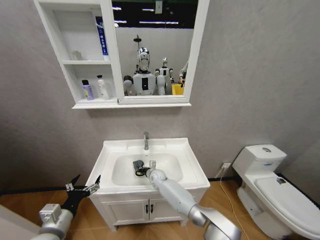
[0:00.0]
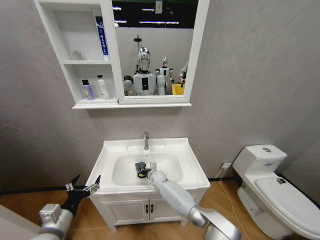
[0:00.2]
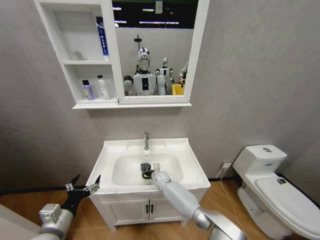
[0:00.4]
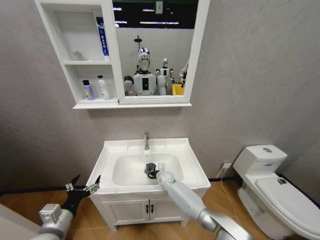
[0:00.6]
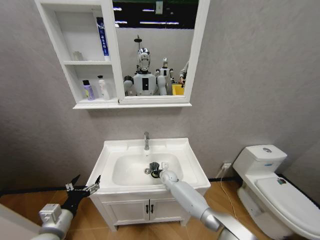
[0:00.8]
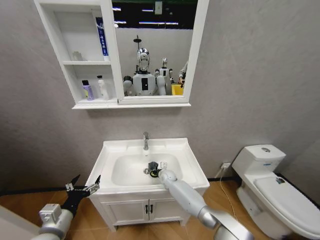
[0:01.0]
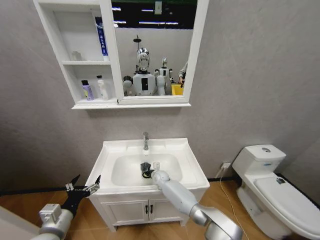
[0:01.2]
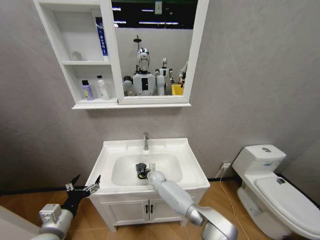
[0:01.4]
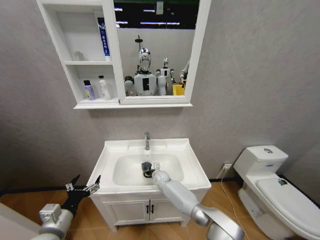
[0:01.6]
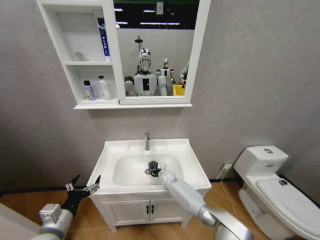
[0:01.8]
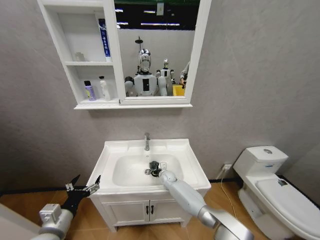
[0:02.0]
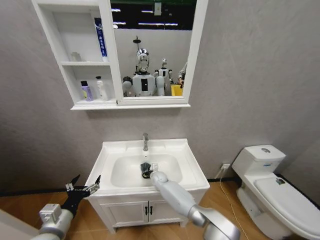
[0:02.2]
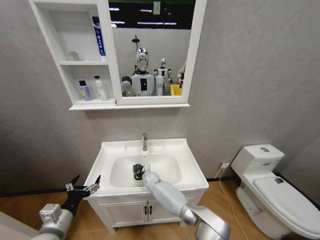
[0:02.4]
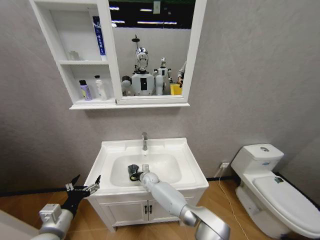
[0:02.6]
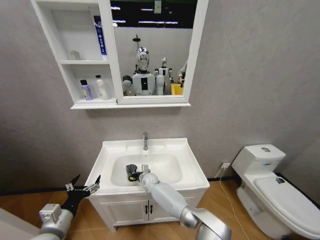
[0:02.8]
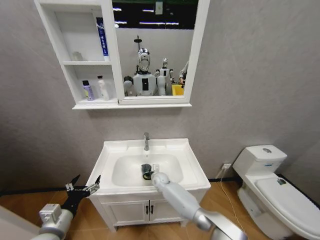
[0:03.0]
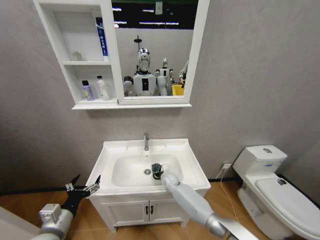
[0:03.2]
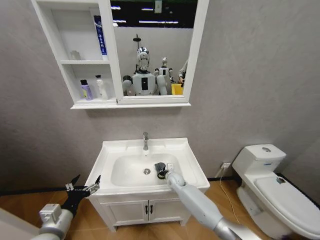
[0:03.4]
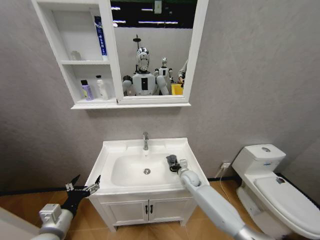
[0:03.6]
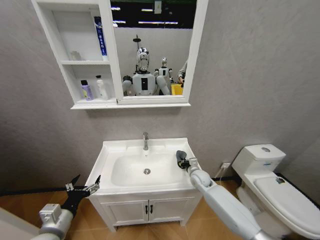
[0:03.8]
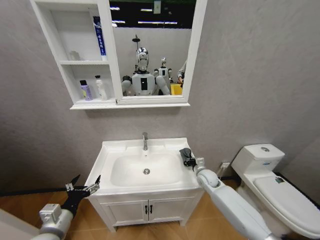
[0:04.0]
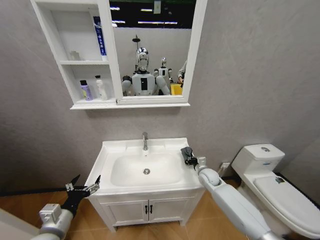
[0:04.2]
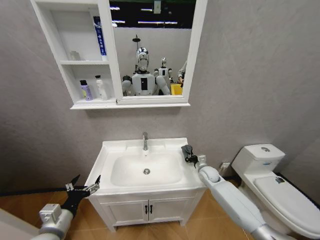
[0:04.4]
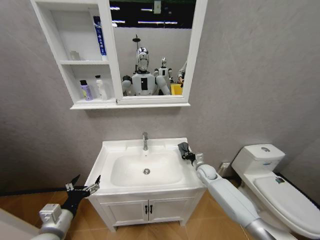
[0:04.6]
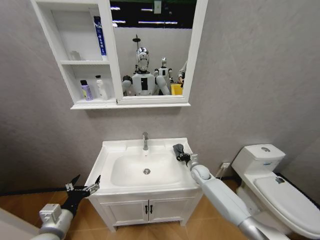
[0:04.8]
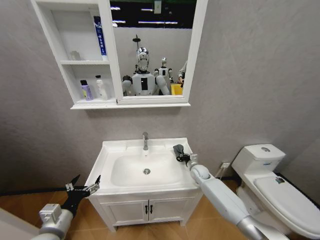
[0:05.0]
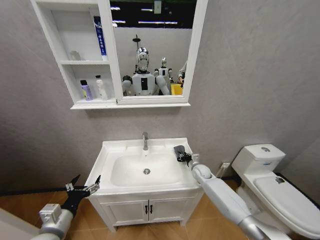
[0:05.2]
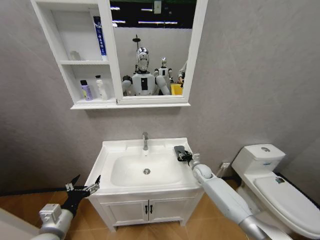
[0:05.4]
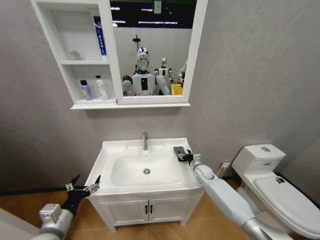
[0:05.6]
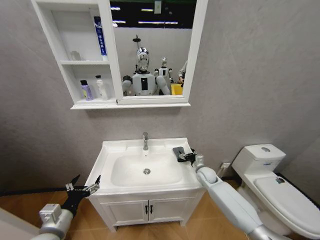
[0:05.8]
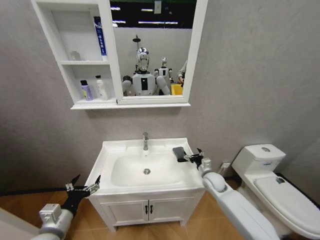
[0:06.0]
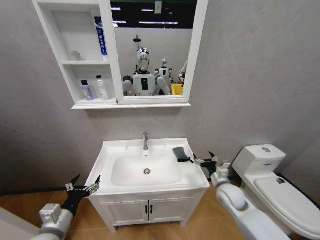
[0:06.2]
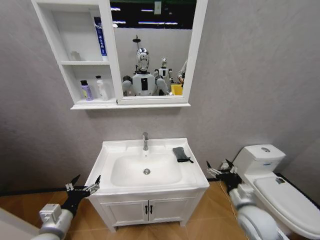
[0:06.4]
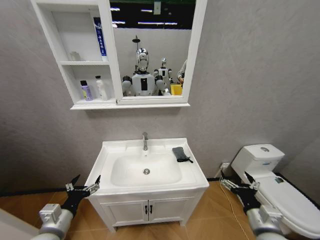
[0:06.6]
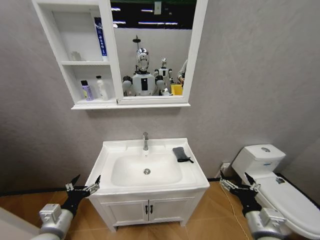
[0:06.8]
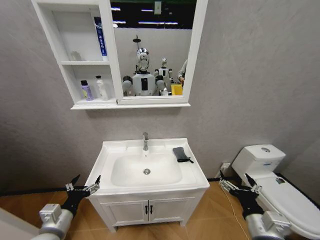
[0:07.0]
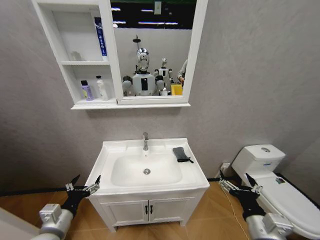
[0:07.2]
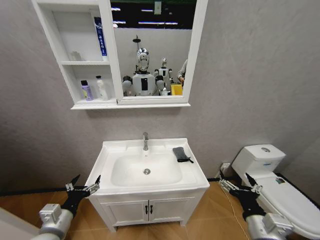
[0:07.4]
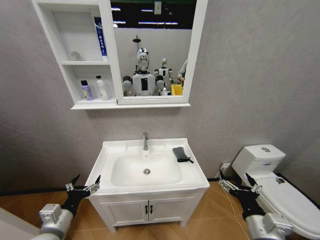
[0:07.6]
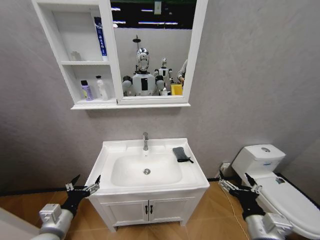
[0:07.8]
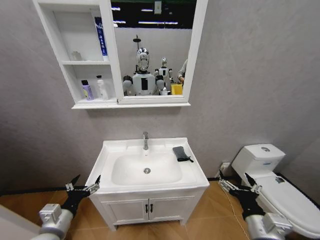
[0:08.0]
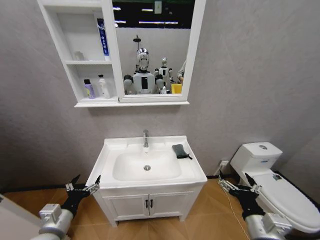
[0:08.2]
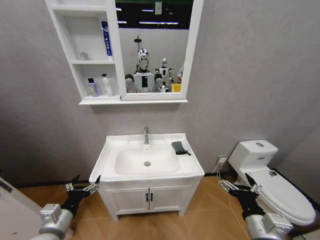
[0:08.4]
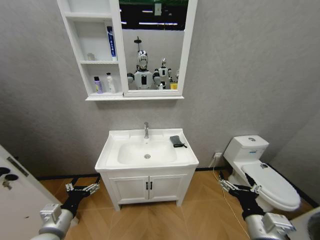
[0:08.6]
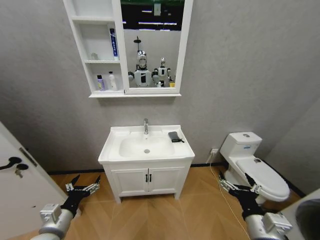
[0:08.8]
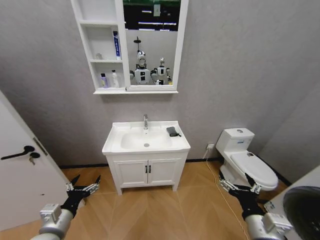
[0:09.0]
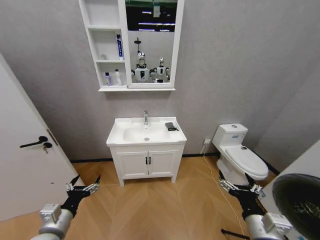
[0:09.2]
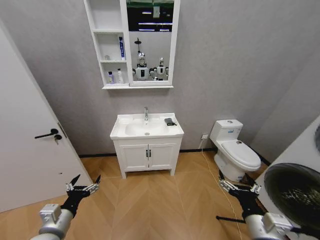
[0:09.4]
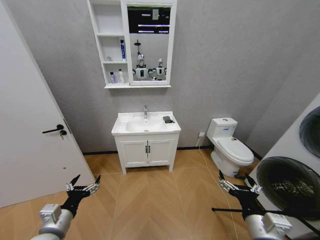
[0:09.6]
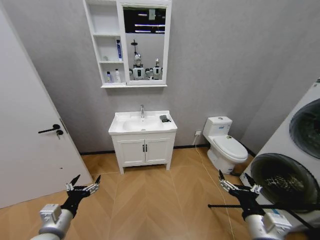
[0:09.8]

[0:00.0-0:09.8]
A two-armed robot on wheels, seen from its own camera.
Task of the whole recording: Move facial cleanser and shampoo from washbasin to cabinet, then wipe washbasin with towel.
0:00.0 to 0:01.4: The right gripper goes to the right and returns, some 10 cm each way.
0:01.4 to 0:02.8: The right gripper ends up approximately 5 cm from where it was.
0:02.8 to 0:04.2: The right gripper moves to the right, some 30 cm.
0:04.2 to 0:05.6: The right gripper opens up.
0:05.6 to 0:07.0: The right gripper is displaced backward and upward by some 40 cm.

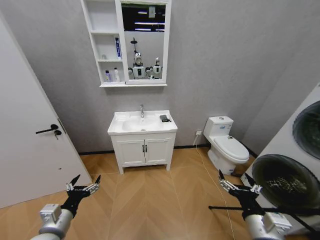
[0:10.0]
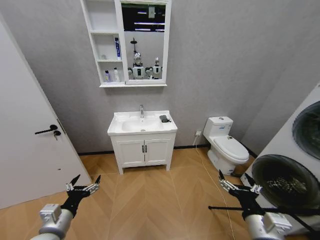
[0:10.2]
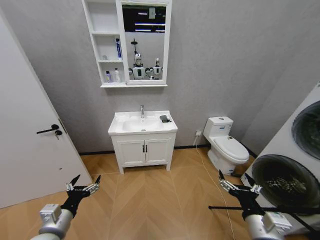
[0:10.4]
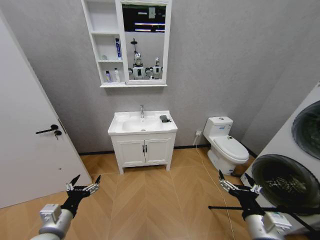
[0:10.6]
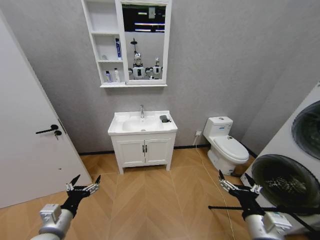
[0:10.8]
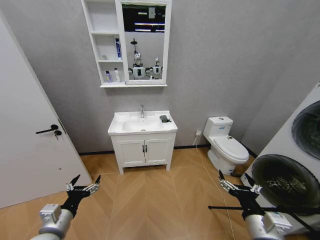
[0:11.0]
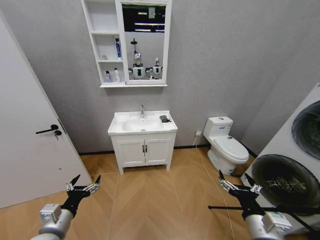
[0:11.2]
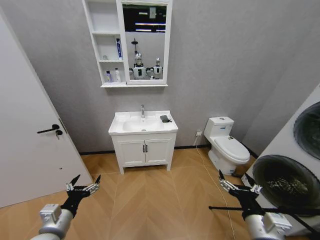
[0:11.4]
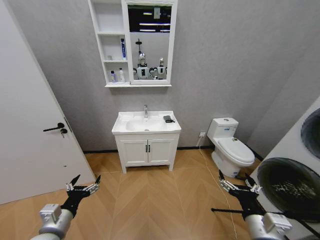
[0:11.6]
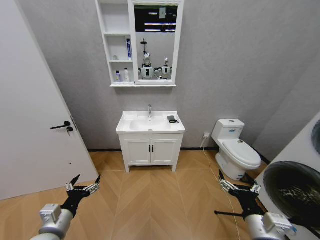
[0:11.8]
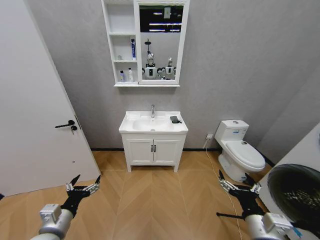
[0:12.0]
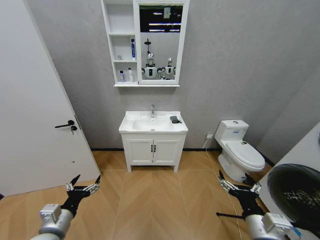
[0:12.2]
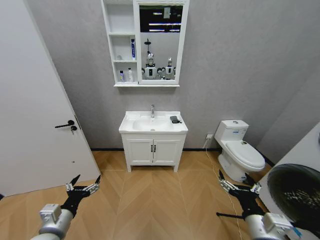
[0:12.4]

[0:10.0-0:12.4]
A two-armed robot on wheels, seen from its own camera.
Task of the whole recording: Move facial cleanser and shampoo from washbasin to cabinet, then wipe washbasin with towel.
0:10.0 to 0:11.2: Neither gripper changes place.
